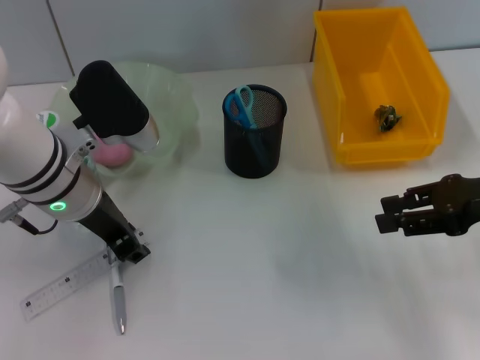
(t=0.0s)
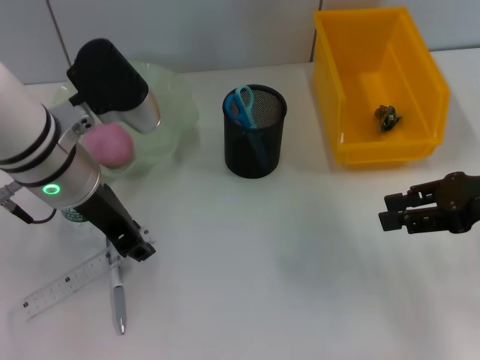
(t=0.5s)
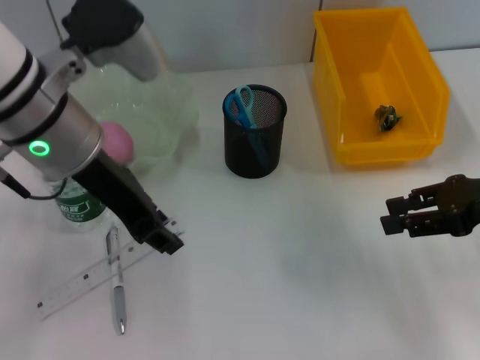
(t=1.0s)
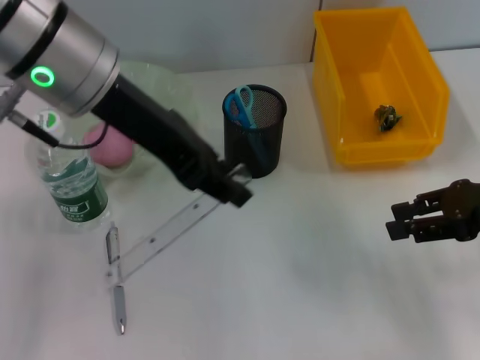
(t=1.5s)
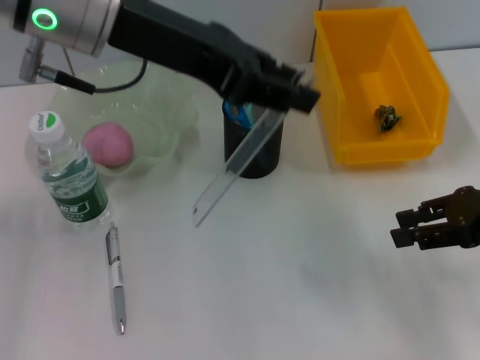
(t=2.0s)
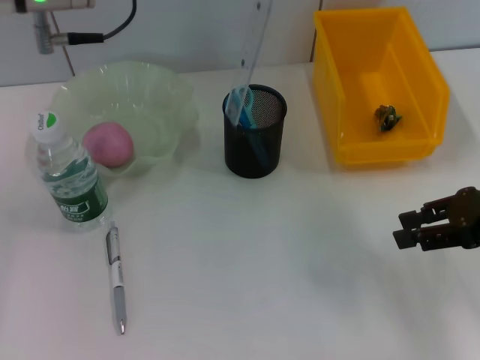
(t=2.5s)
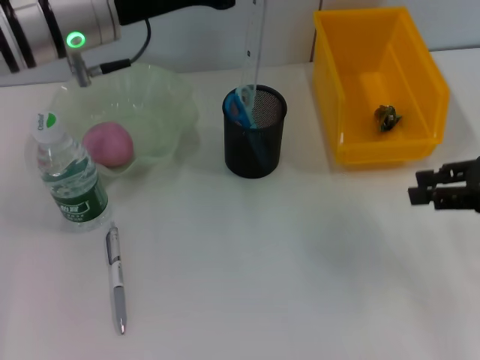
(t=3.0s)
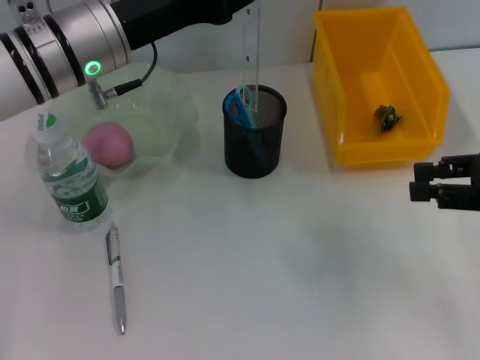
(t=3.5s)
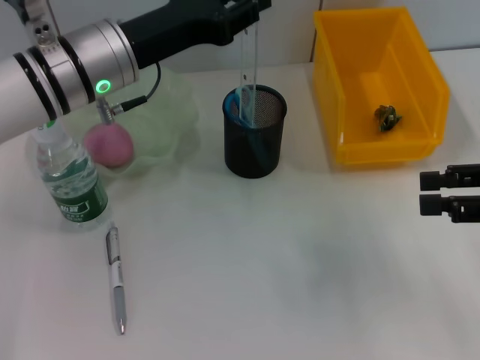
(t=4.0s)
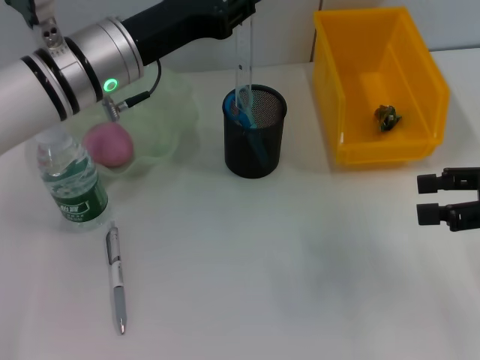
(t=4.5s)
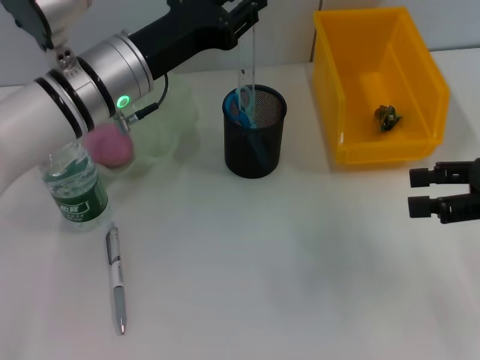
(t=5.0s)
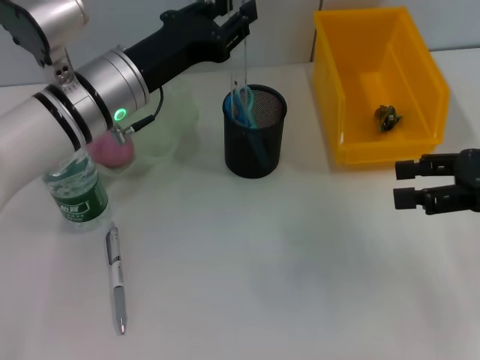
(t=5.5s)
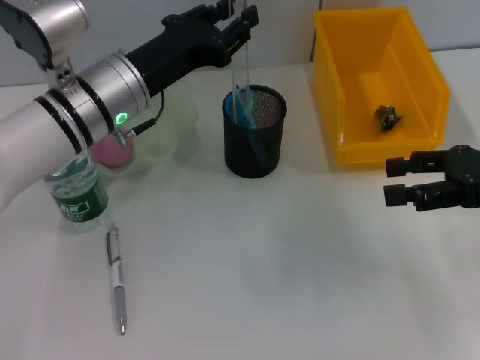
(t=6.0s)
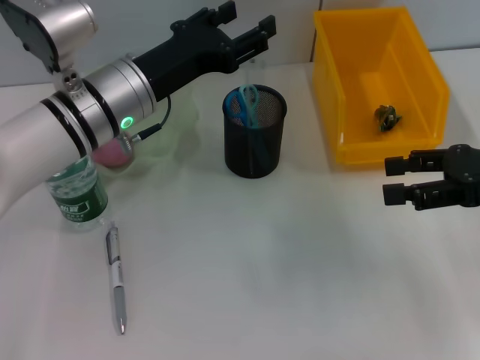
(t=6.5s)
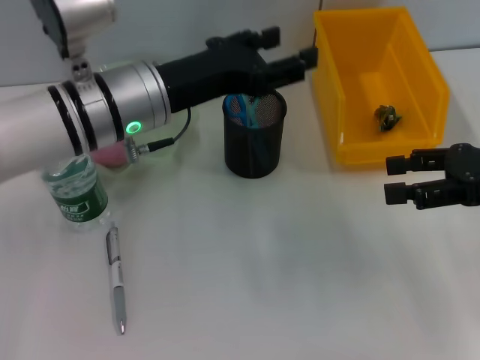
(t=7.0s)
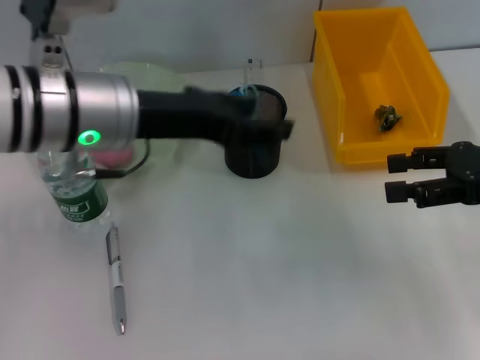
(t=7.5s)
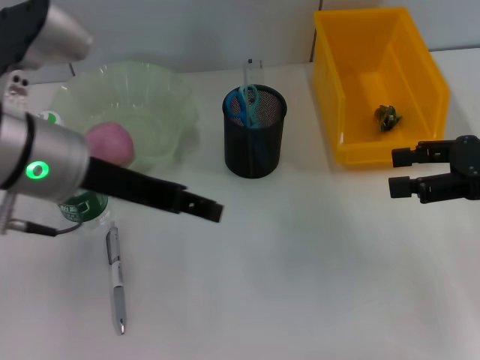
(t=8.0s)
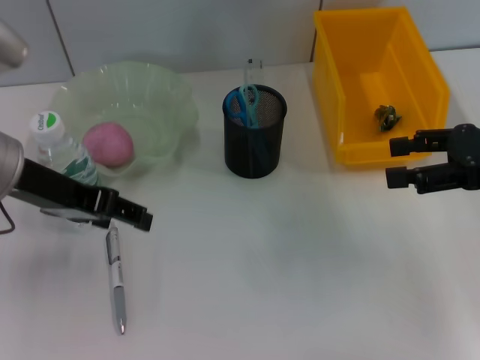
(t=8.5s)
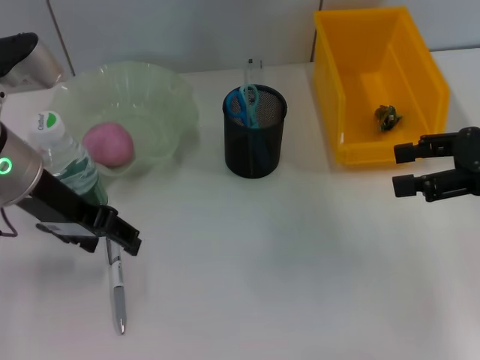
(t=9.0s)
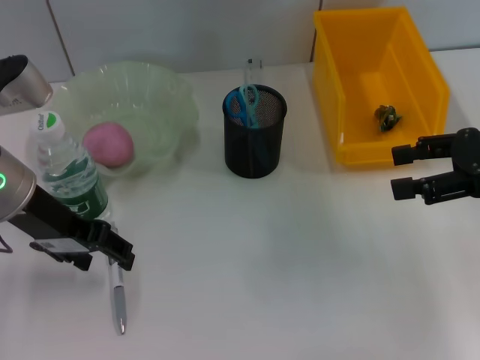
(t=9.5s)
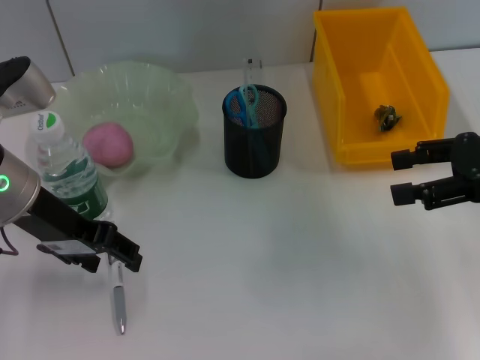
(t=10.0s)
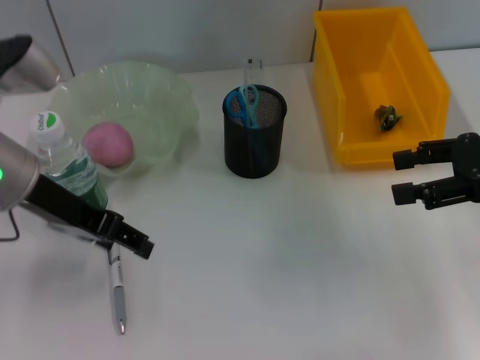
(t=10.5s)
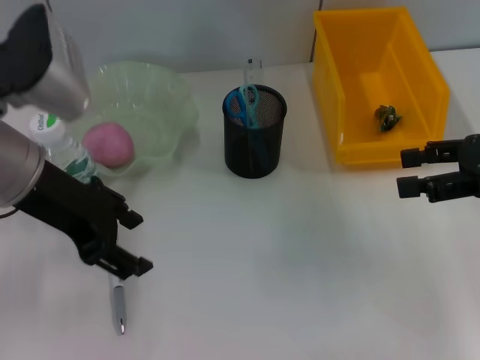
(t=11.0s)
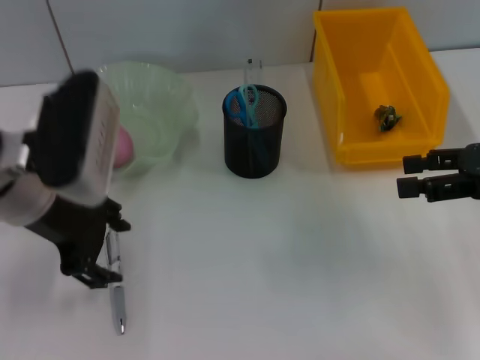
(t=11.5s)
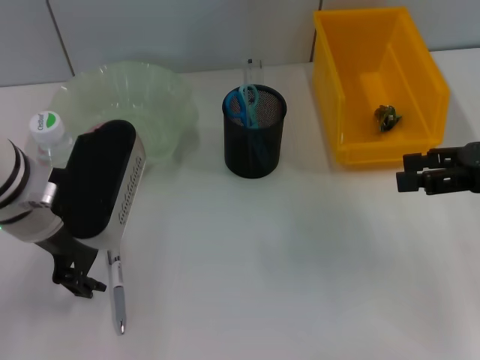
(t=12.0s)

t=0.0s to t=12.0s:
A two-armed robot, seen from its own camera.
Step, t=0.5s to t=6.5s: Place the ruler into the pen holder with the left hand.
t=0.0s to t=2.0s: The left gripper is displaced upward by about 15 cm.
t=2.0s to t=4.0s: The left gripper shifts about 15 cm downward.
t=4.0s to t=6.0s: The right gripper opens up.
t=6.0s to t=8.0s: The left gripper travels backward and upward by roughly 10 cm, and opens up.
t=8.0s to t=10.0s: The left gripper moves roughly 5 cm.

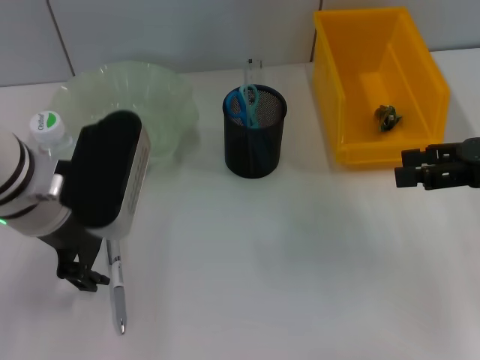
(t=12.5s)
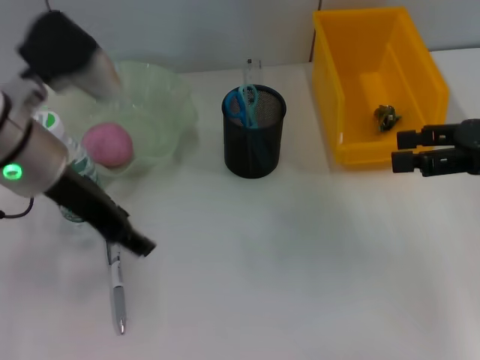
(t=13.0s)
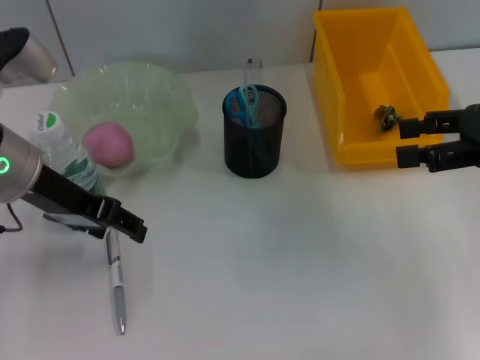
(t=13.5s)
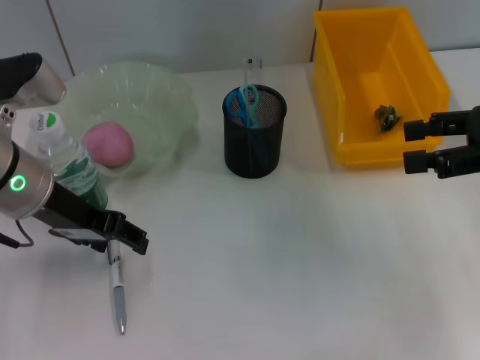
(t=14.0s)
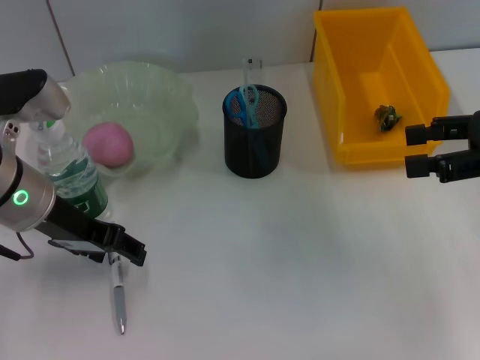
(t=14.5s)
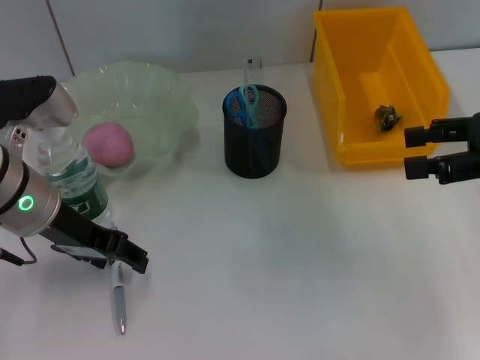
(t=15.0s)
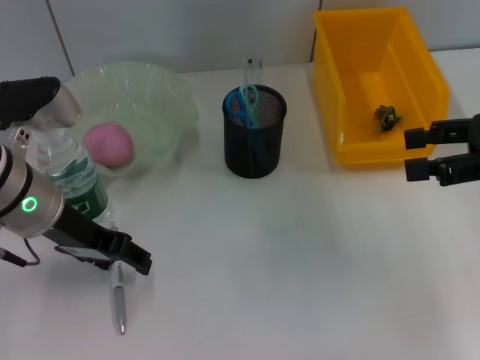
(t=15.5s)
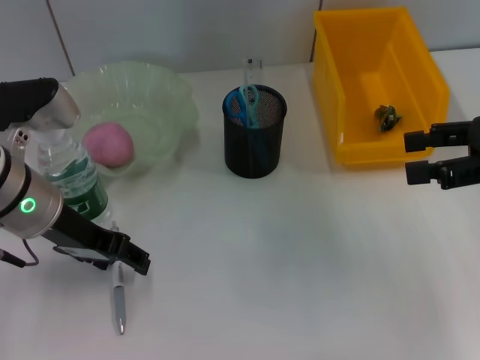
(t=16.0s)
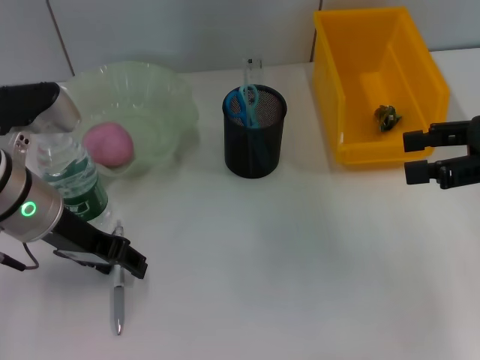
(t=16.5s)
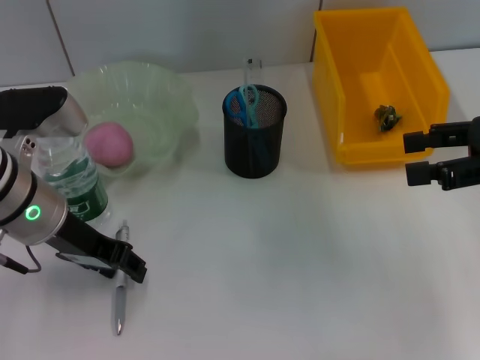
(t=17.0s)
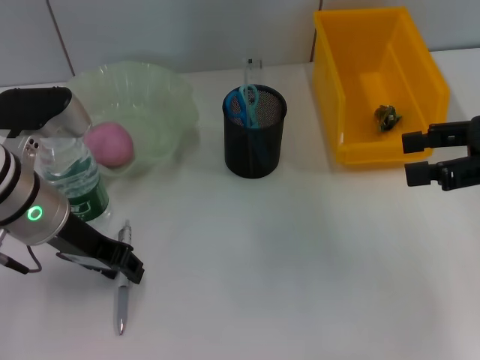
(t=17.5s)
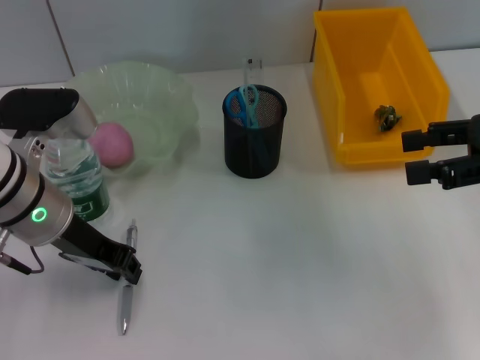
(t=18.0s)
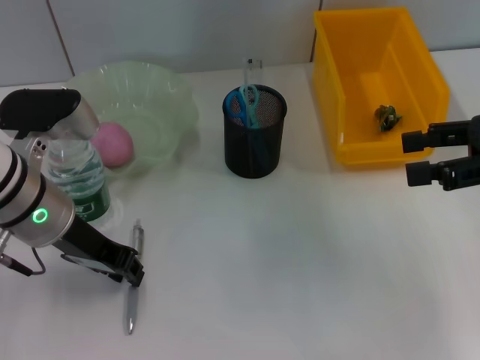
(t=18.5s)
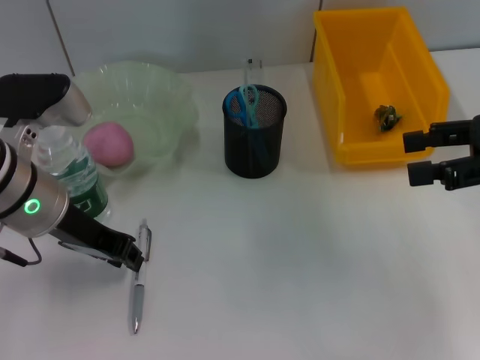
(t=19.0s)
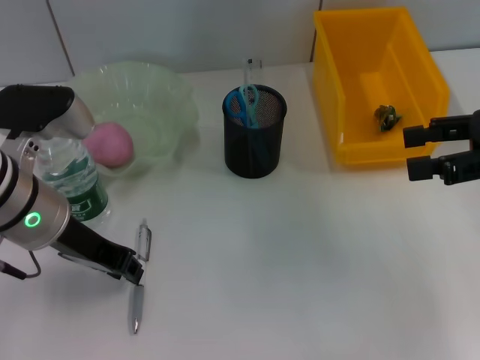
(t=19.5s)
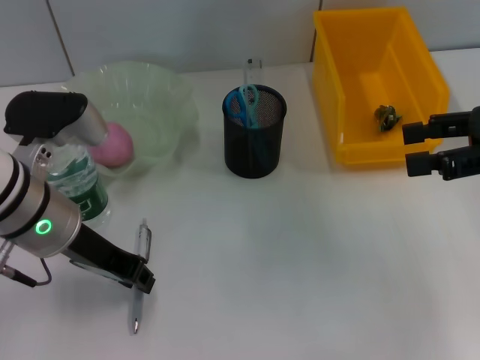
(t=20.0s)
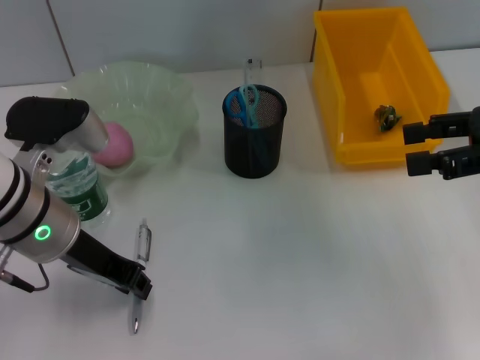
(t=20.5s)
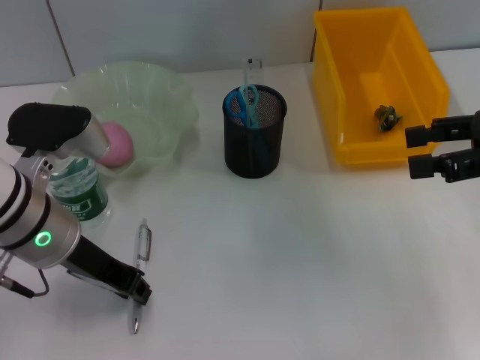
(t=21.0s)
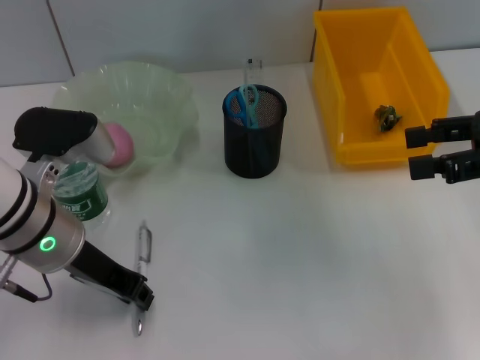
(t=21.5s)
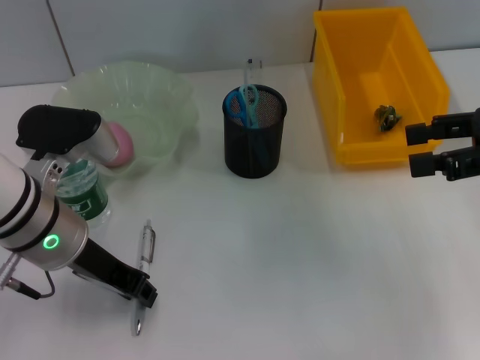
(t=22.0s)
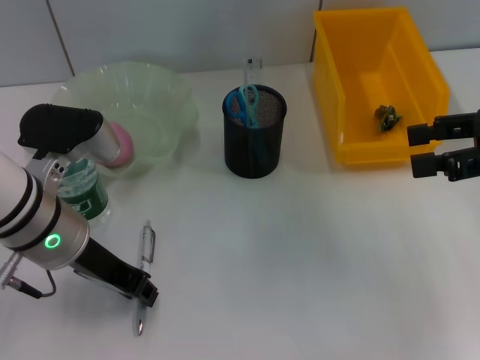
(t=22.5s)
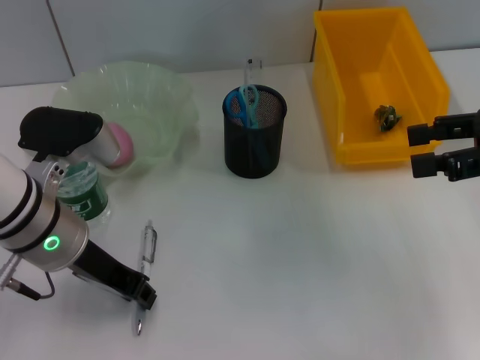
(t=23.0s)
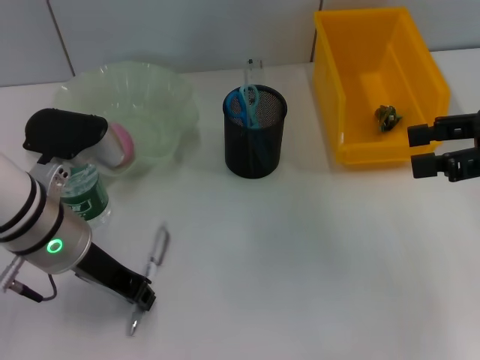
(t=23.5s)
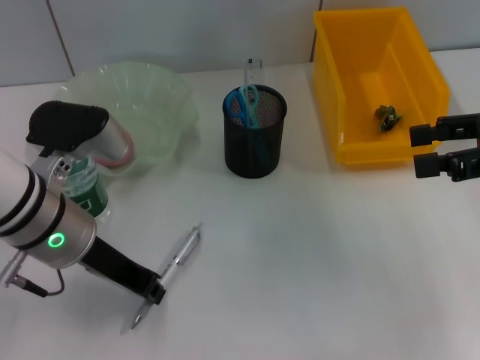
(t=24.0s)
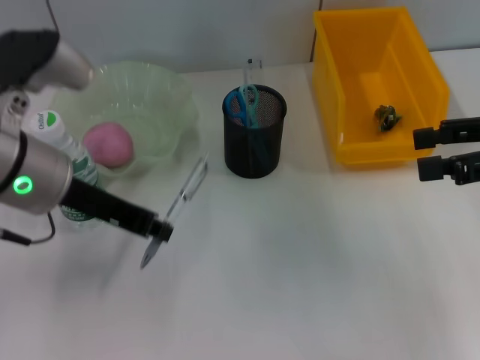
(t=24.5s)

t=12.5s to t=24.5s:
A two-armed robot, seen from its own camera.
Step, t=12.5s to t=23.5s: Grab the gray spring-action pen with the left hand.
t=14.5s to t=16.5s: Both grippers stay about where they are.
t=16.5s to t=18.5s: The left gripper closes its fingers.
t=18.5s to t=20.5s: The grippers make only small movements.
t=20.5s to t=22.5s: Both grippers stay about where they are.
t=22.5s to t=24.5s: The left gripper heads upward, covering approximately 5 cm.

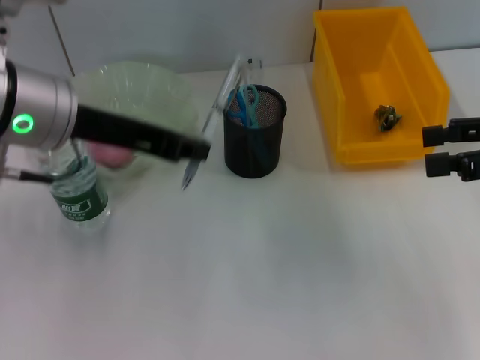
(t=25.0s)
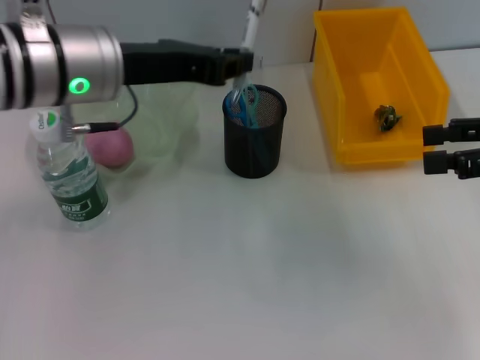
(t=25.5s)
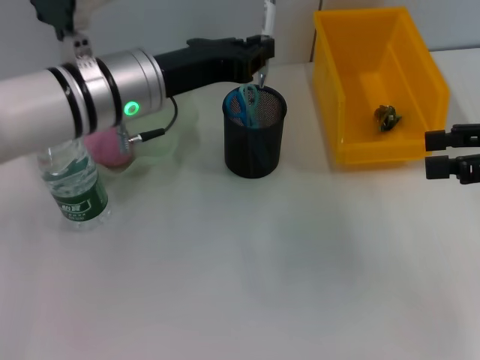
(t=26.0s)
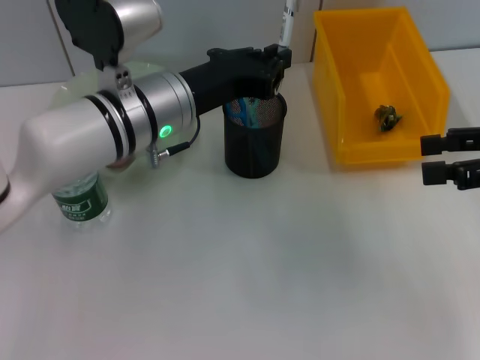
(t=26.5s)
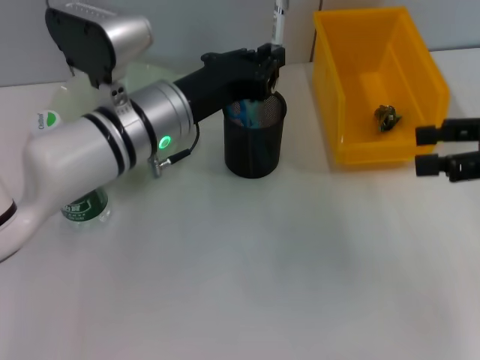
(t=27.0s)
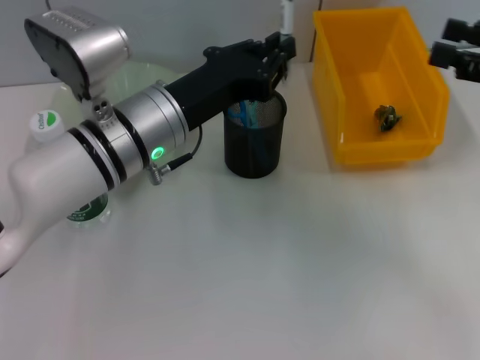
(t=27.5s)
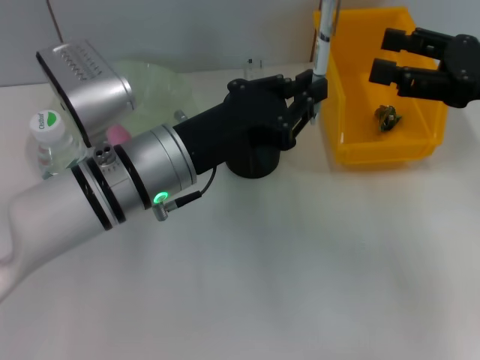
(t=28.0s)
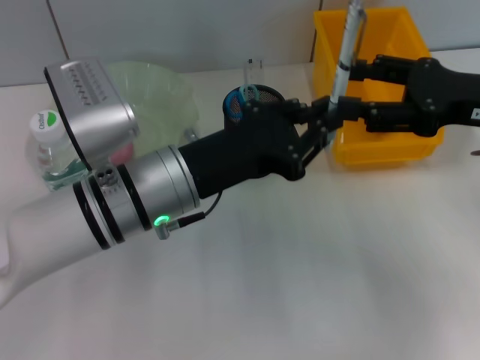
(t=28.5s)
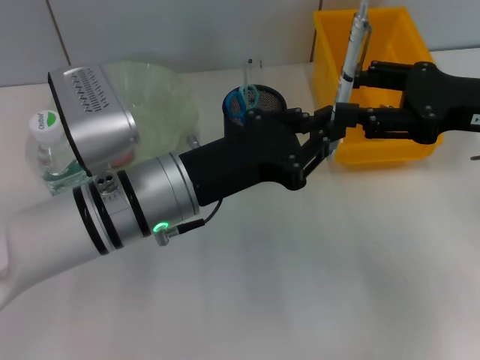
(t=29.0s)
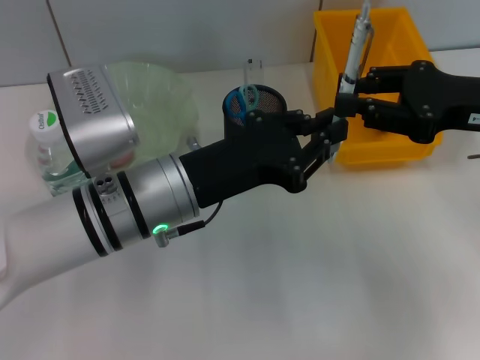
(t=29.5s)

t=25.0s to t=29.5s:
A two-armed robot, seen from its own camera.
t=25.0s to t=27.0s: The left gripper moves downward and to the right, about 10 cm.
t=27.0s to t=29.5s: The right gripper is displaced to the left by some 5 cm, and closes up; the left gripper travels backward by roughly 5 cm.
